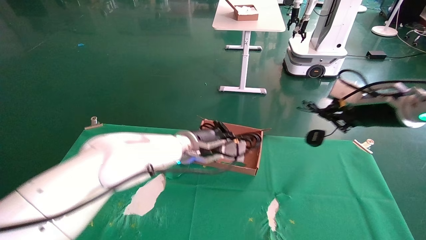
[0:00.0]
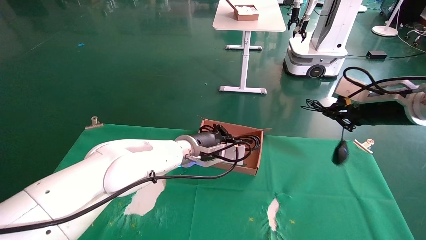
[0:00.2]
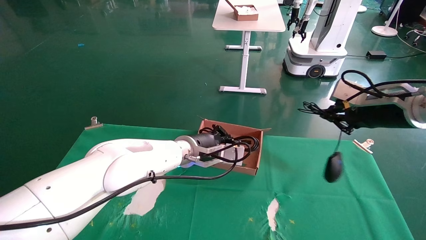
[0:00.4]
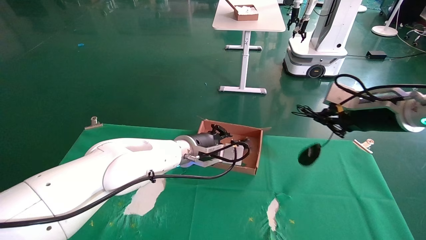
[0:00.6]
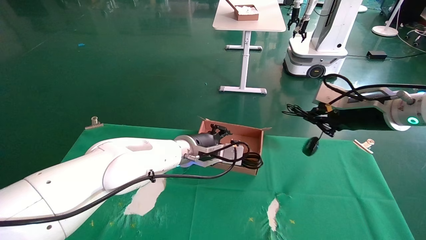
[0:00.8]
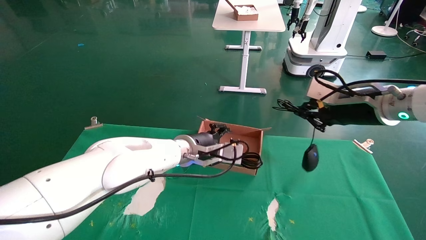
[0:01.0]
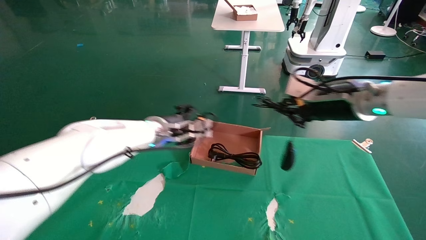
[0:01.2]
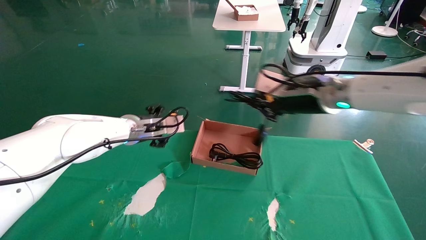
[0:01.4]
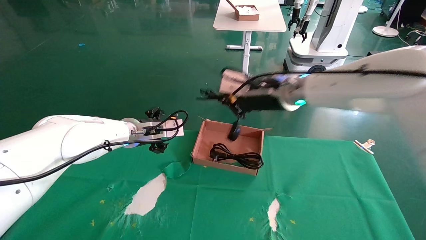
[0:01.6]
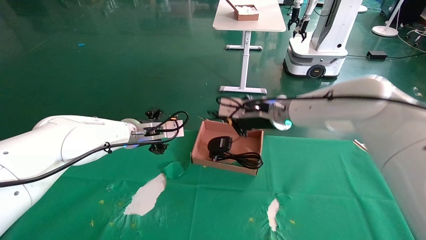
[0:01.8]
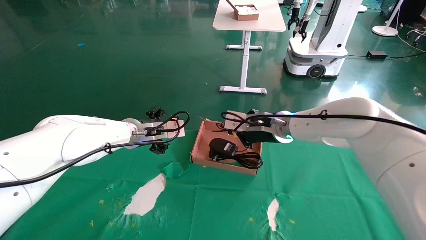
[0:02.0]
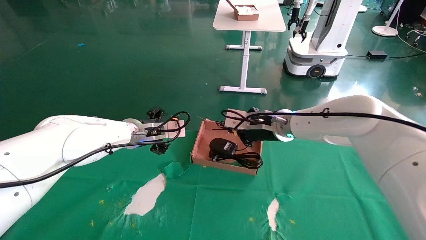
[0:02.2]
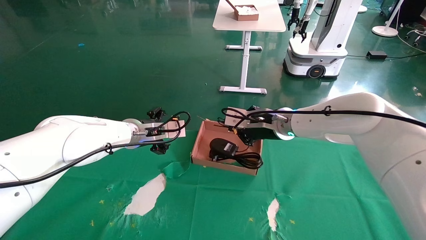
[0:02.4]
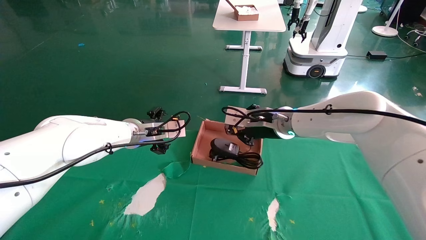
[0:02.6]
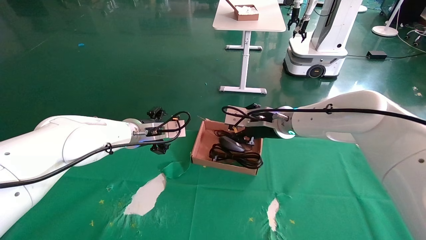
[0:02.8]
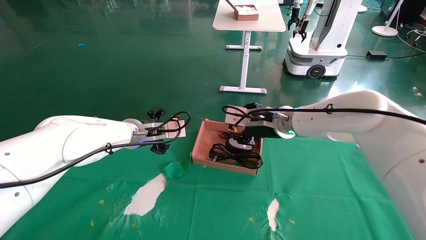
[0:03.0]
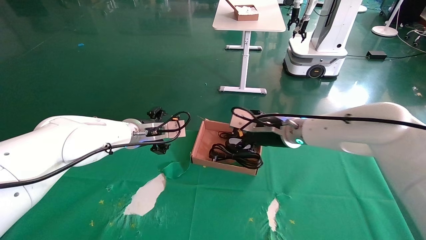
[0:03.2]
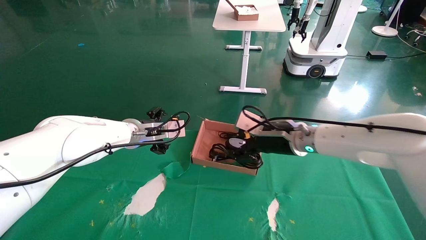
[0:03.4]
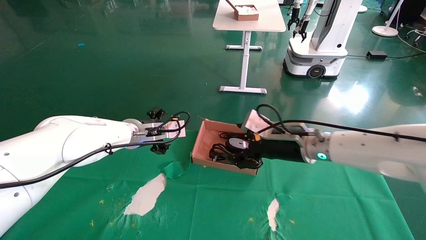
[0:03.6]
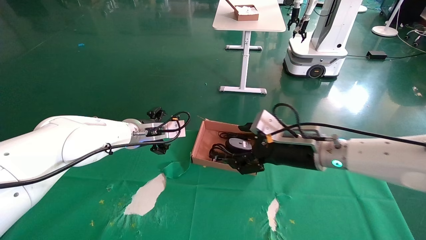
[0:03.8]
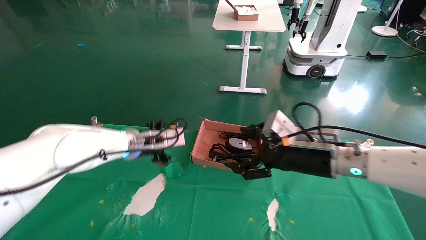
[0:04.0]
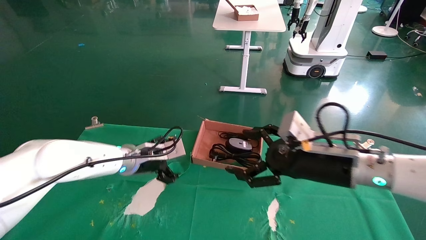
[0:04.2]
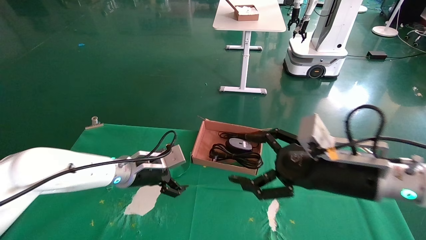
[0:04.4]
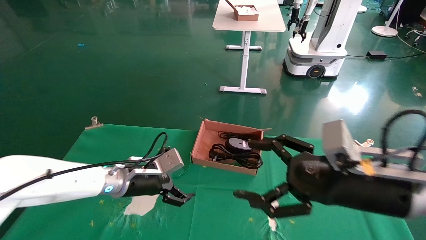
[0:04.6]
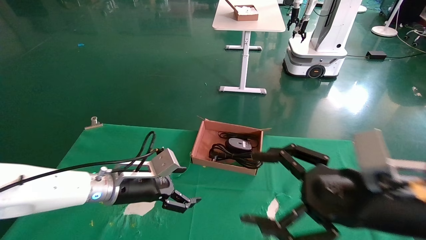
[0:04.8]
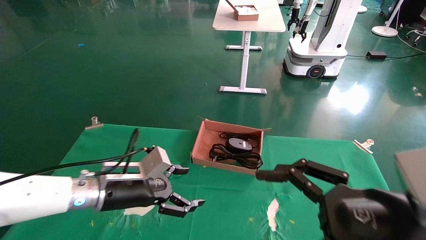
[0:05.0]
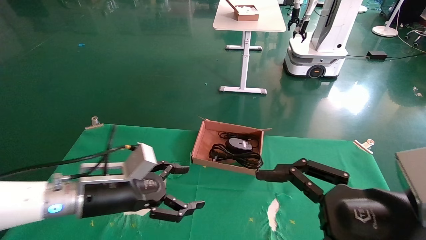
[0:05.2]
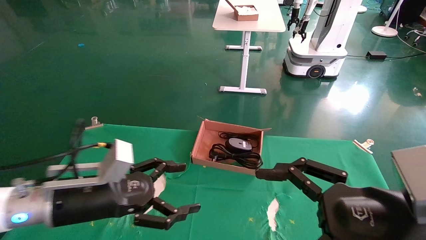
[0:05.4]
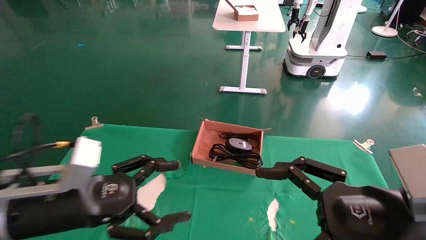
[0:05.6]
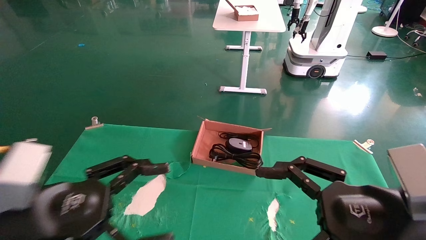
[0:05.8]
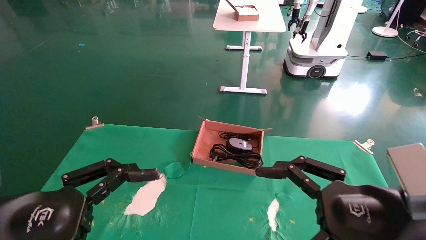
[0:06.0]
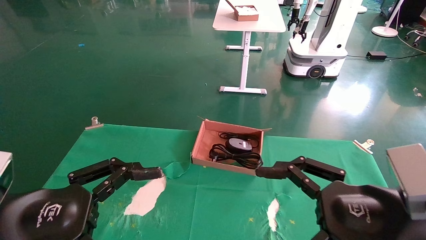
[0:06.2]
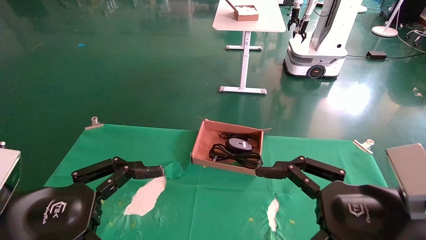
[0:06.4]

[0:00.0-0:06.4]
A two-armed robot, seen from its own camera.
Step, 0:00.0 to 0:03.8: Place the mouse and power cord into the box.
0:00.0 to 0:01.6: The left gripper is displaced to the left by some 10 cm, and opens its fingers. The right gripper moves to the left, some 20 cm.
0:01.6 to 0:03.2: The right gripper shifts approximately 5 cm downward, and opens.
0:03.2 to 0:04.8: The left gripper travels backward and downward by some 15 cm. The right gripper travels backward and to the right by approximately 25 cm, and opens up.
0:04.8 to 0:06.4: The left gripper heads backward, covering roughly 20 cm.
